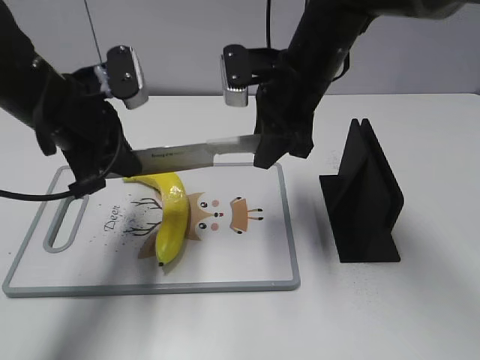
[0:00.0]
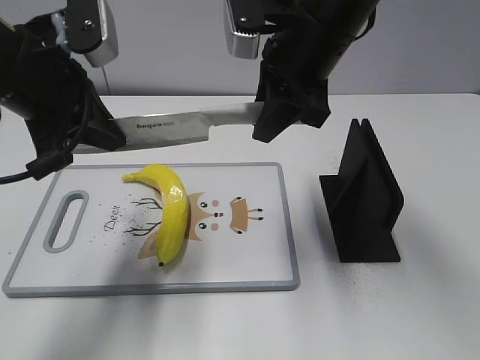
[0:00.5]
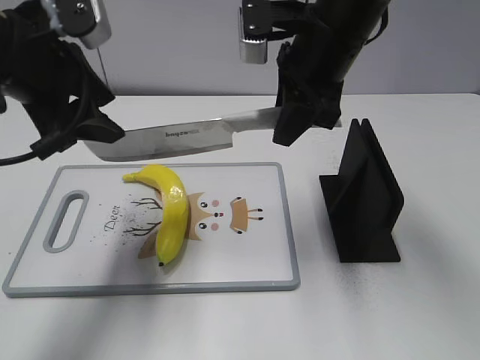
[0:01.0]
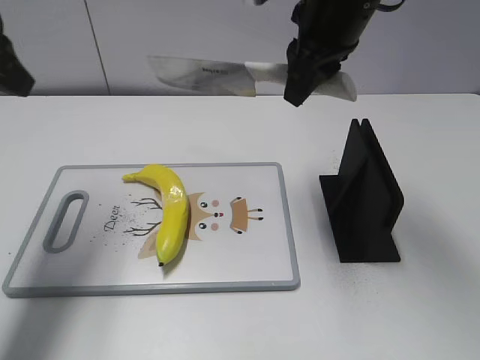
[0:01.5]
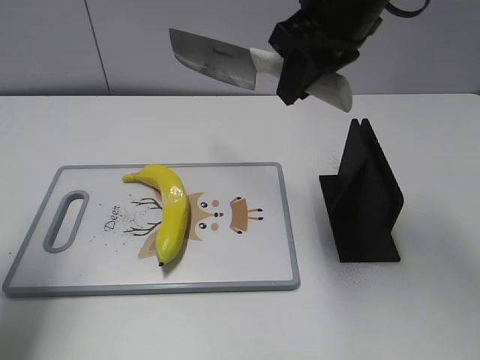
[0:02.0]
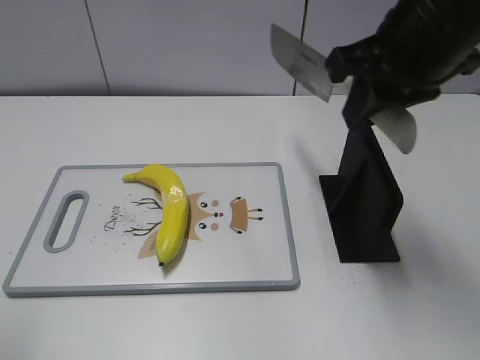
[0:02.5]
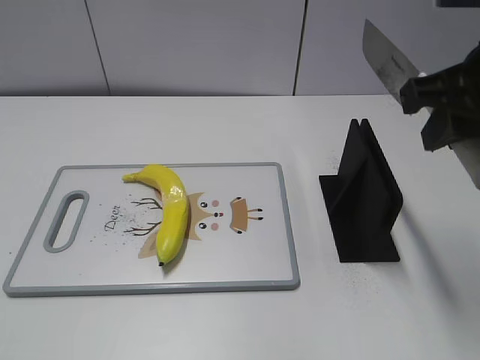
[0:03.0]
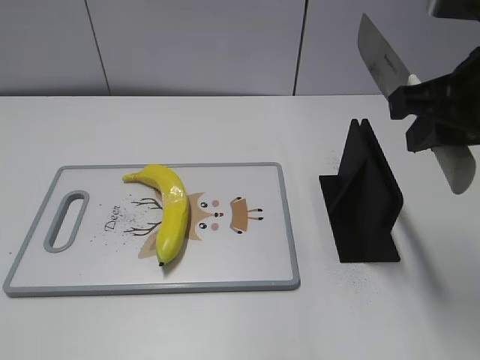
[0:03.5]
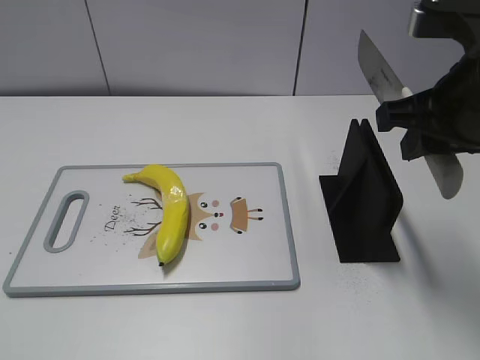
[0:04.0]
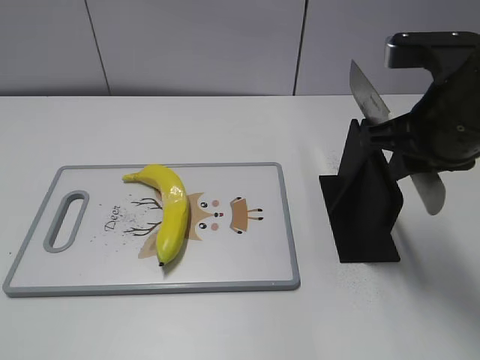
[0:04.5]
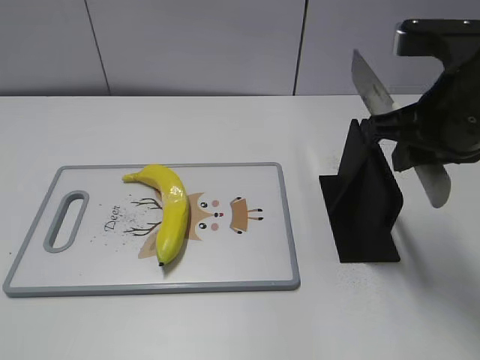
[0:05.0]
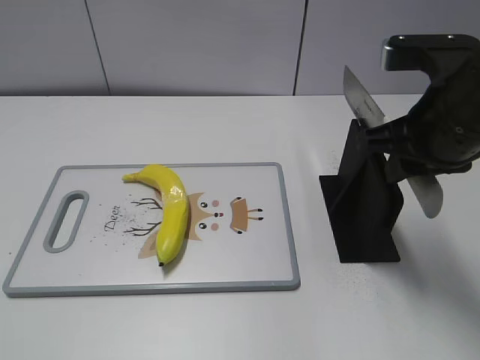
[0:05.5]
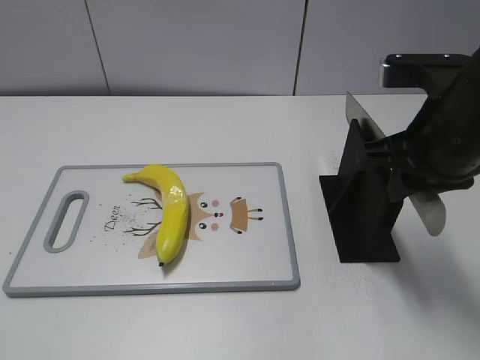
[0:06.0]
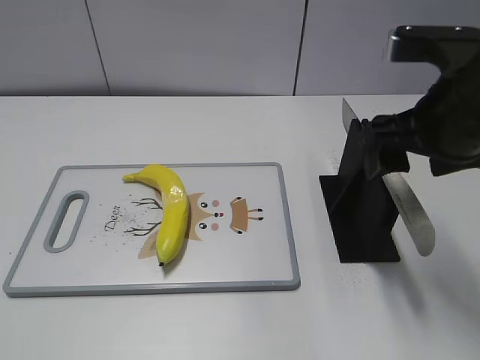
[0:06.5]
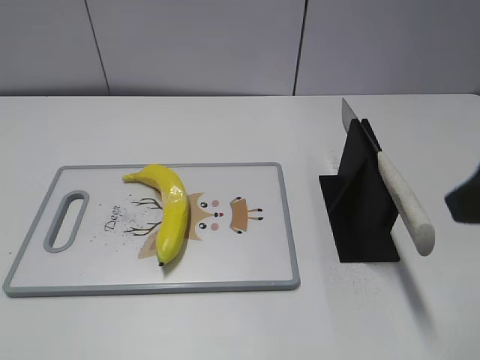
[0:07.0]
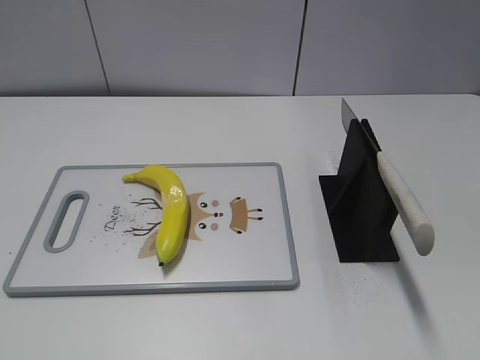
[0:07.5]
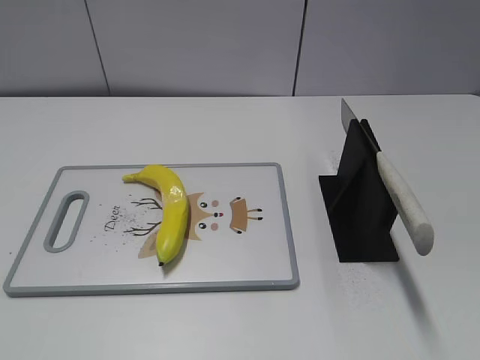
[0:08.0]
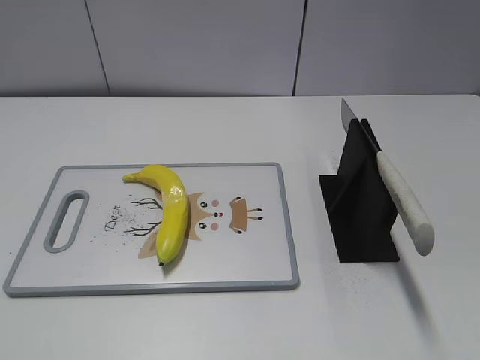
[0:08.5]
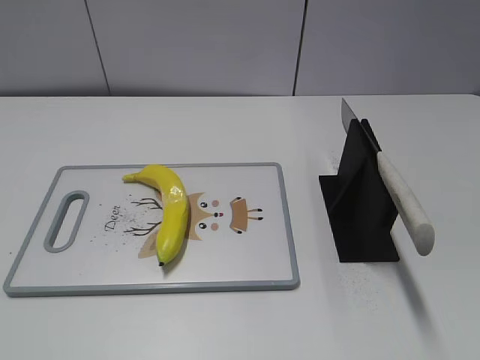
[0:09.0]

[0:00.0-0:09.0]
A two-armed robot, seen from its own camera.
Task of the whole recording: cut plastic banana.
Step, 0:01.0 to 0:01.5: Cut the banana with your right hand.
Step, 0:02.0 to 0:03.5: Lift the knife with your right hand.
Step, 0:04.0 to 0:09.0: Place the knife on the storage rack with your right hand.
0:00.0 to 0:02.0: The right gripper goes roughly 10 cm upward. Meanwhile the left gripper goes roughly 15 cm to the left, upward and backward, and opens up.
0:02.0 to 0:04.5: The right gripper shifts roughly 15 cm backward, to the right and downward, while the left gripper moves backward, roughly 25 cm.
0:04.5 to 0:07.0: The right gripper heads backward and upward, covering approximately 10 cm, and opens up.
0:07.0 to 0:09.0: The right gripper heads backward and to the right, covering roughly 20 cm.

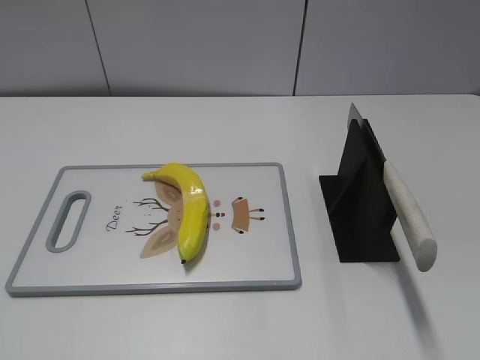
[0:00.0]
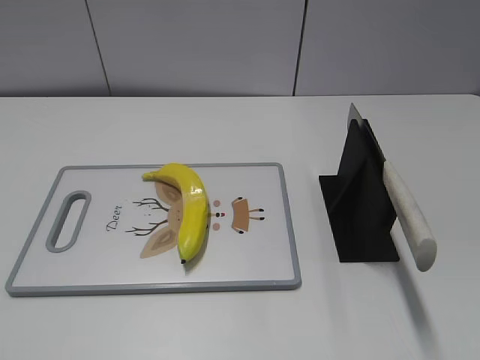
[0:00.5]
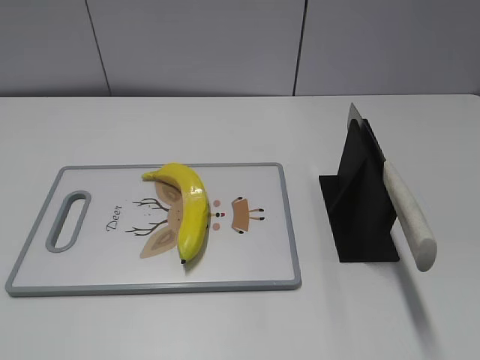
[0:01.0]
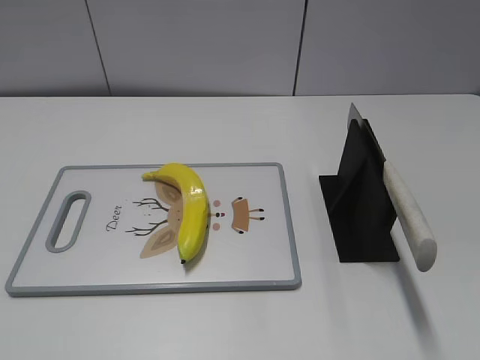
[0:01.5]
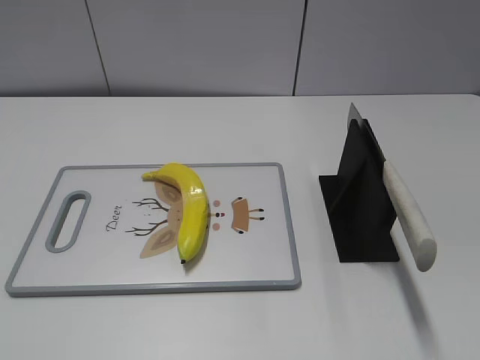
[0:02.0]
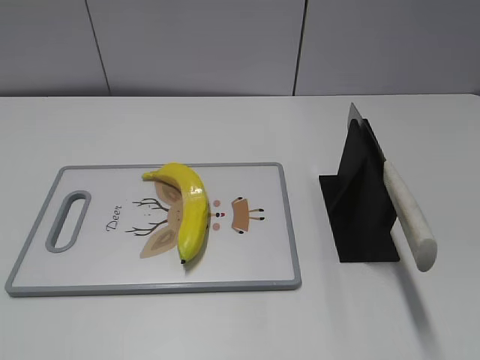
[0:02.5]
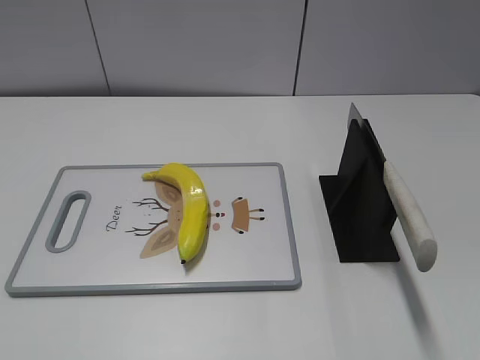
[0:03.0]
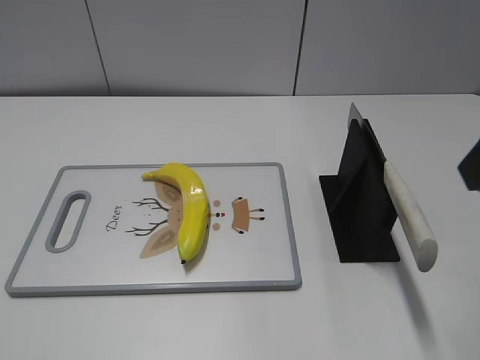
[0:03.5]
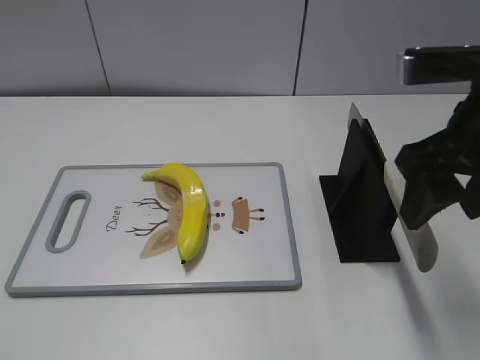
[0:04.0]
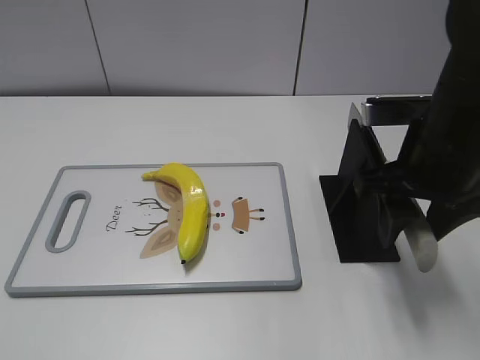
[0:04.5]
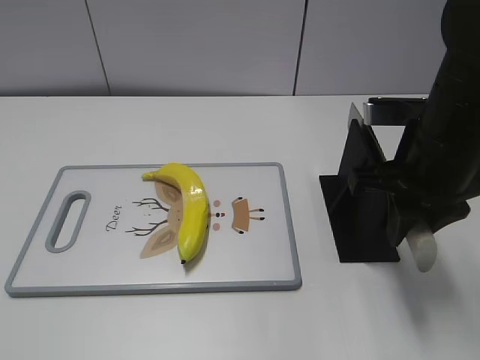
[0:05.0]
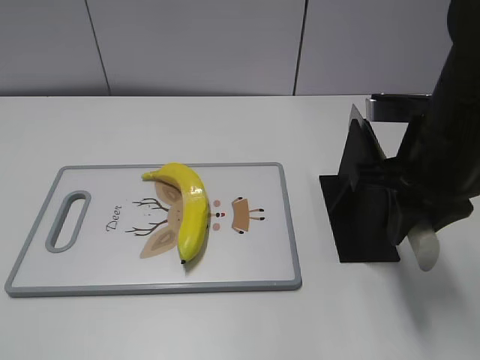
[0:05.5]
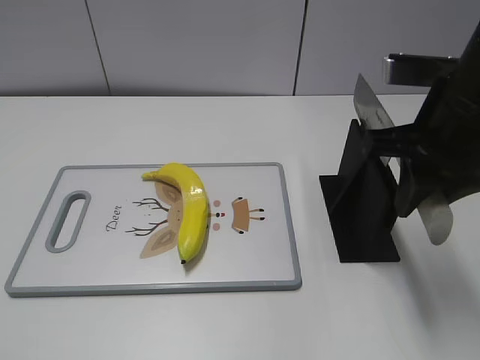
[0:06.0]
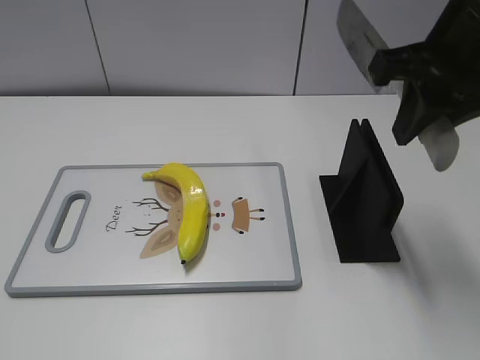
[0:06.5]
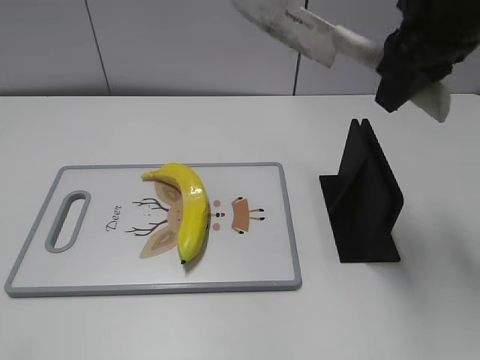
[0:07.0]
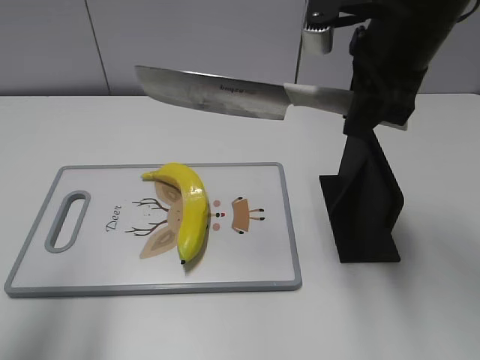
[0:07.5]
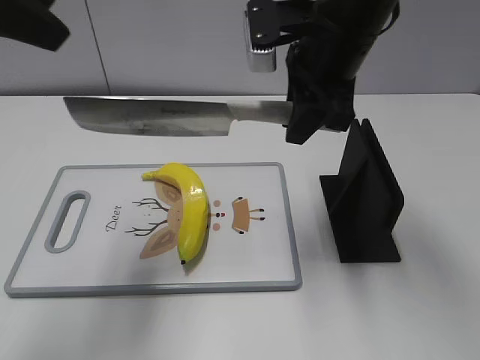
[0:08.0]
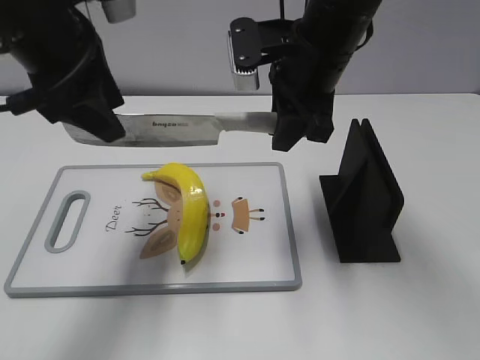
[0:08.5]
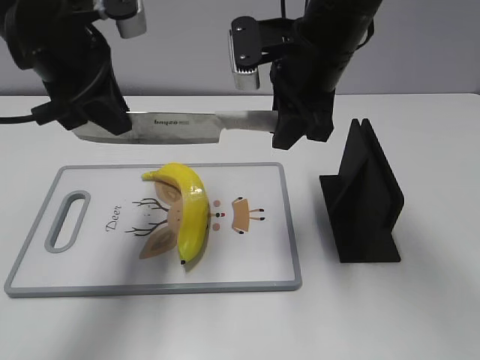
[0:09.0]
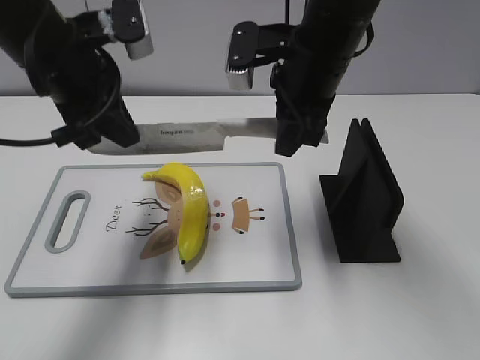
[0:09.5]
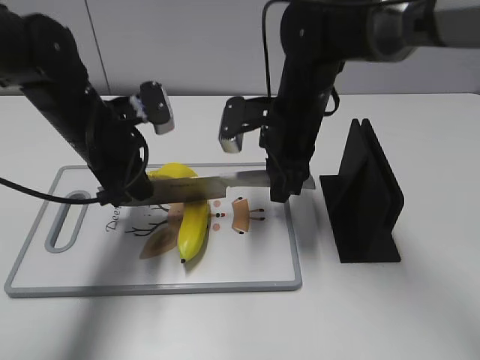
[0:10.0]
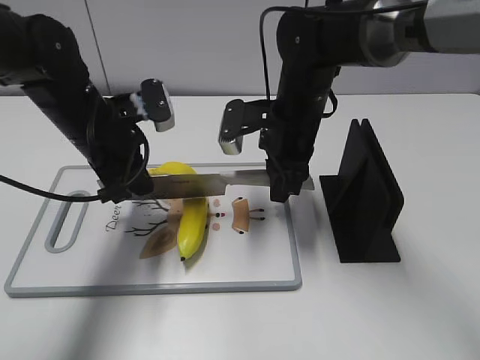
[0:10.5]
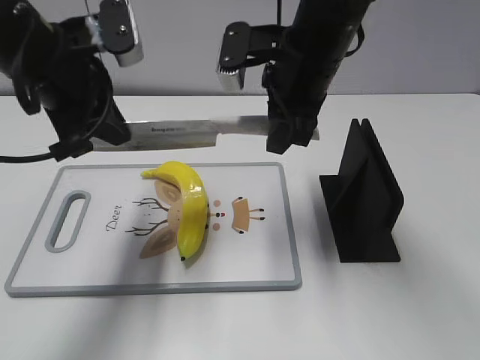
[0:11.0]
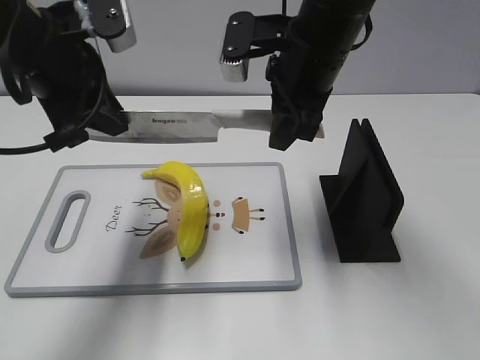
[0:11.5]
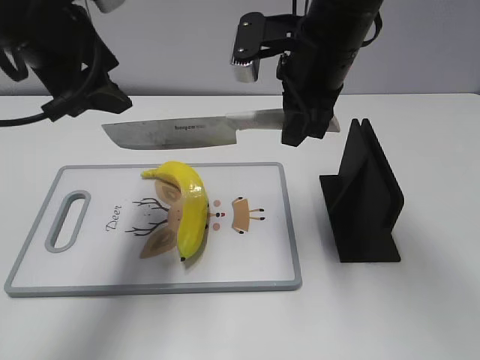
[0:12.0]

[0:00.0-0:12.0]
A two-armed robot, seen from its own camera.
Task of the whole recording: cut plastic banana.
Step, 0:00.0 to 0:06.0: Grab the knife handle with your right hand.
Step, 0:06.5 to 0:11.0: Lift the knife with your right hand.
0:02.0 to 0:04.0: The right gripper heads forward and to the left, covering about 25 cm.
0:04.0 to 0:06.0: The right gripper closes.
0:06.0 to 0:08.0: The right gripper is displaced forward and to the left by some 15 cm, while the left gripper goes approximately 30 cm forward and upward.
0:08.0 to 0:10.0: The left gripper travels downward by roughly 20 cm, and closes up. The right gripper goes some 10 cm downward.
0:10.0 to 0:12.0: Both grippers travel together upward, about 10 cm. The left gripper opens up.

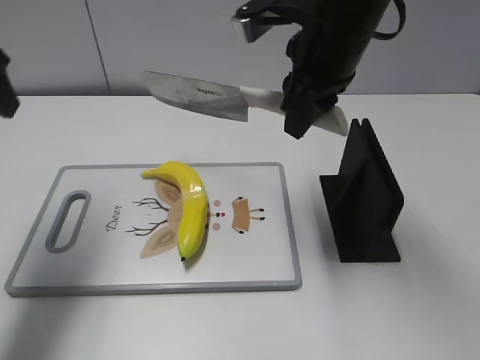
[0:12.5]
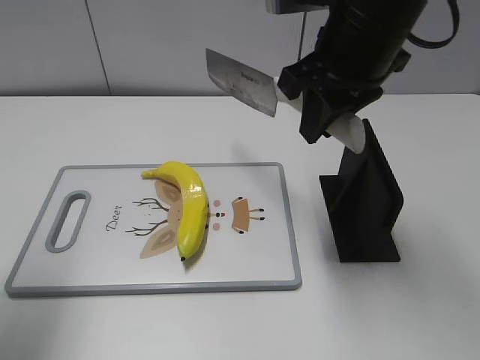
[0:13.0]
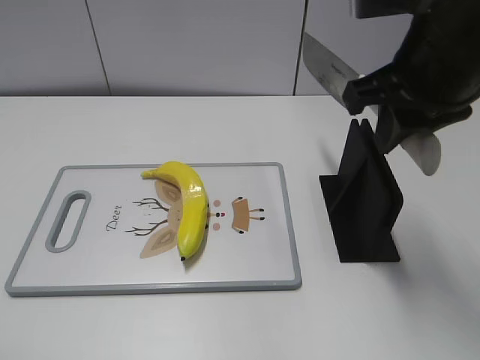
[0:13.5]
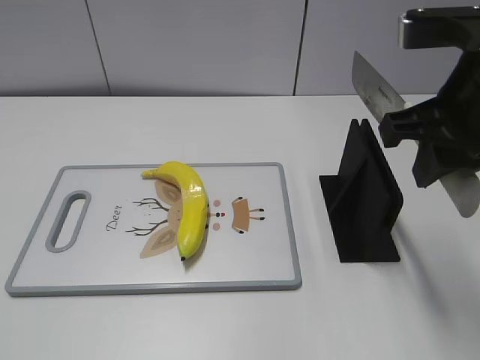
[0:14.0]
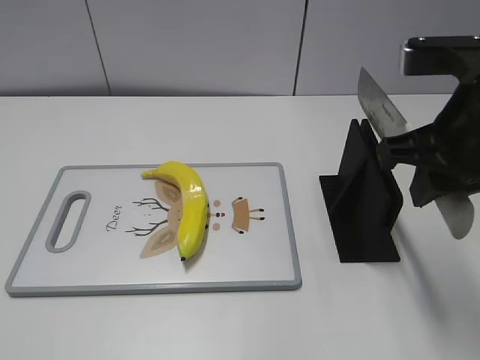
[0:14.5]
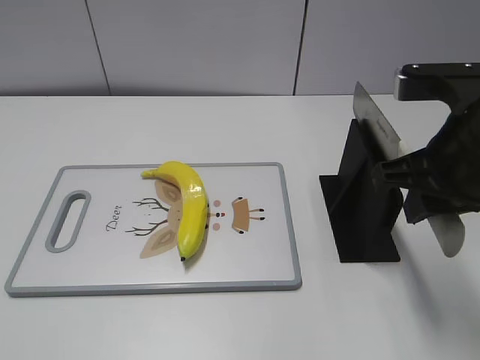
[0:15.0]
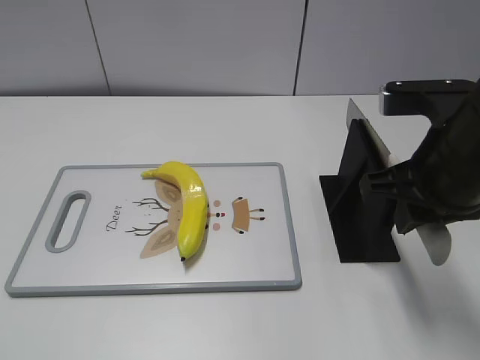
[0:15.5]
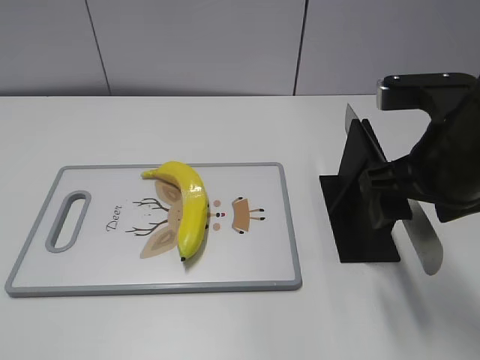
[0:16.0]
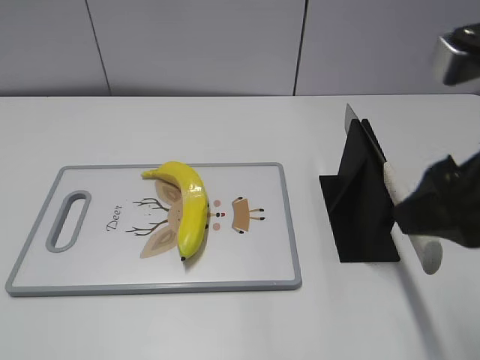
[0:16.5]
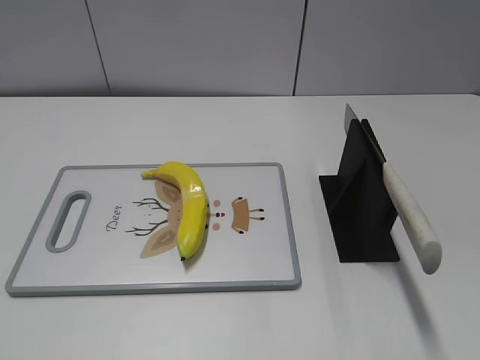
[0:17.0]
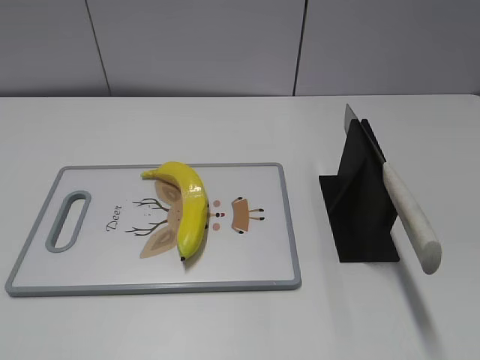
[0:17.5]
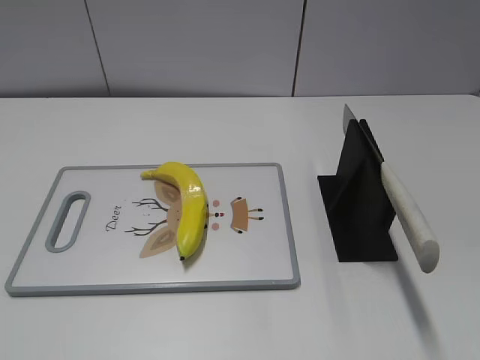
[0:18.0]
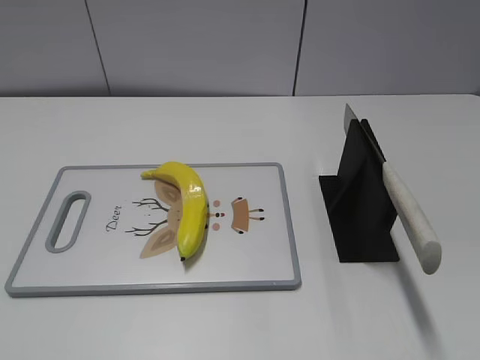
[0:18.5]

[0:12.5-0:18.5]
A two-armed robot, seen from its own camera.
Task of the whole recording: cut plastic banana.
Step, 0:13.0 to 0:14.0: Lift the knife with your right hand.
Step, 0:14.5 to 0:18.5: Place the knife on the storage rack with your right hand.
0:12.5 to 0:14.5: The left gripper goes approximately 30 cm backward. Meanwhile the right gripper is displaced backward and to the right by some 15 cm.
0:14.5 to 0:16.5: The right gripper is displaced backward by some 5 cm, and opens its fingers.
0:16.5 to 0:18.5: The right gripper travels backward and to the right by approximately 20 cm.
